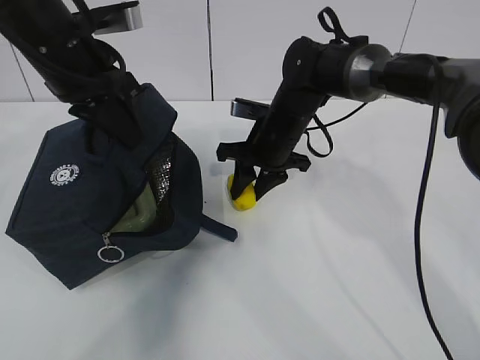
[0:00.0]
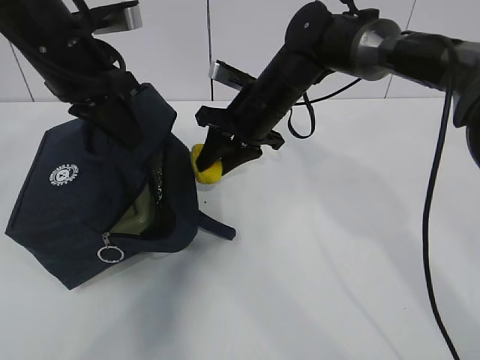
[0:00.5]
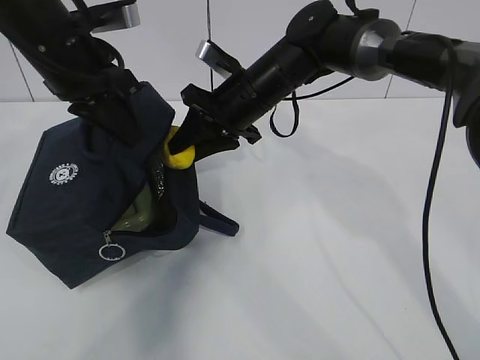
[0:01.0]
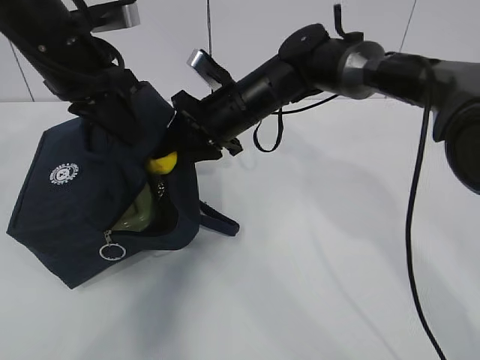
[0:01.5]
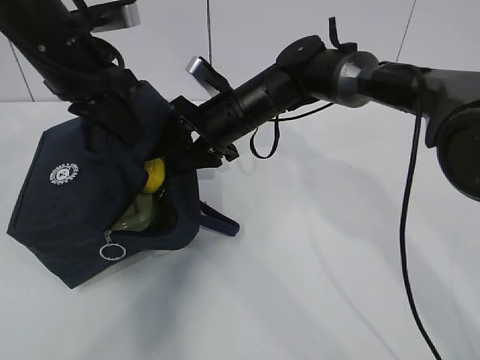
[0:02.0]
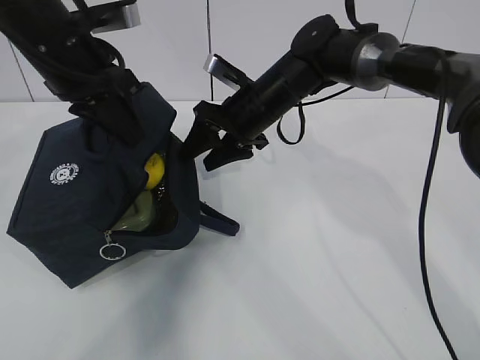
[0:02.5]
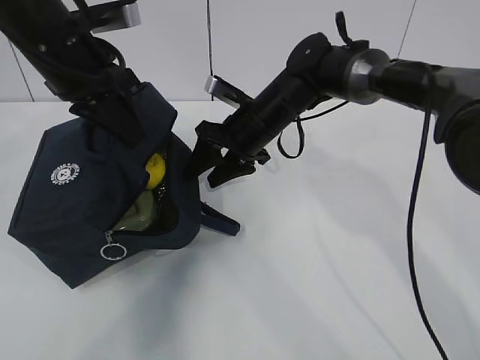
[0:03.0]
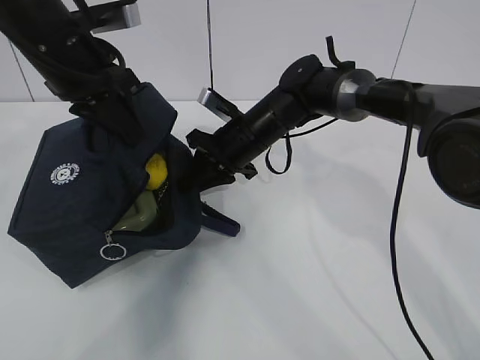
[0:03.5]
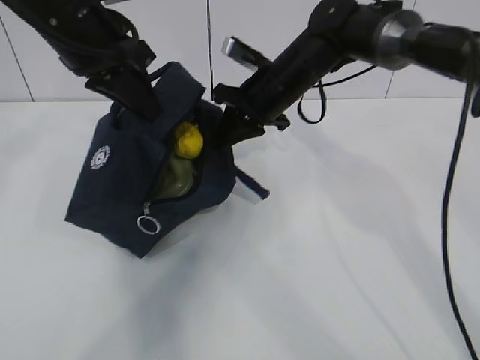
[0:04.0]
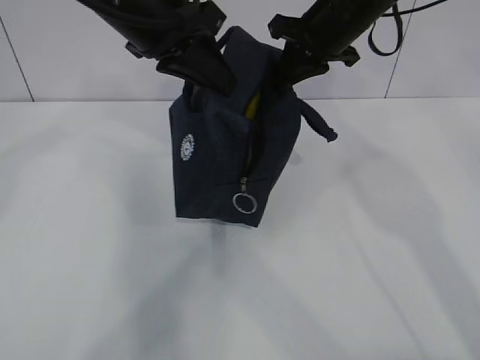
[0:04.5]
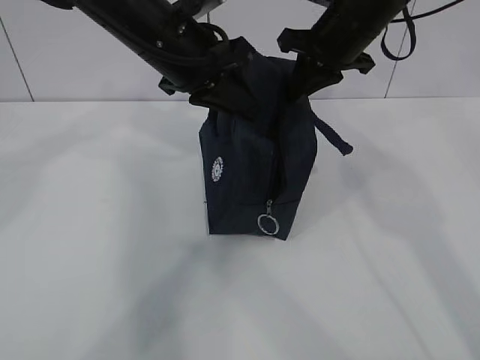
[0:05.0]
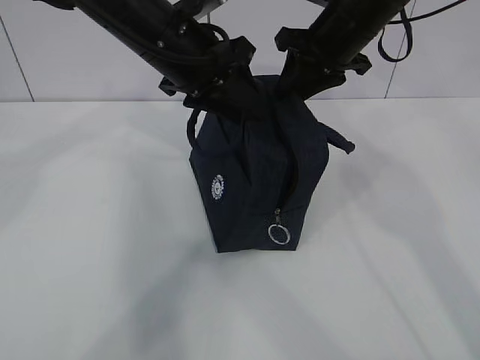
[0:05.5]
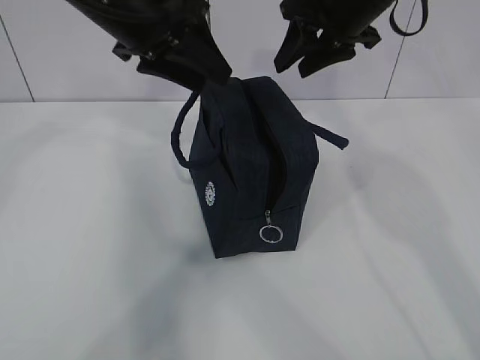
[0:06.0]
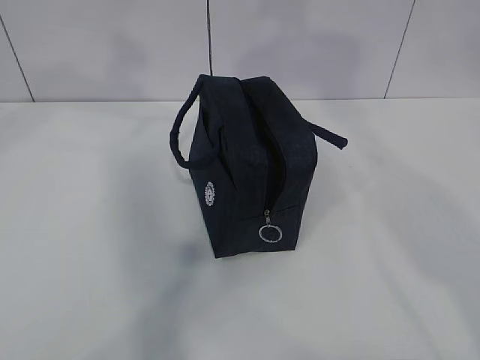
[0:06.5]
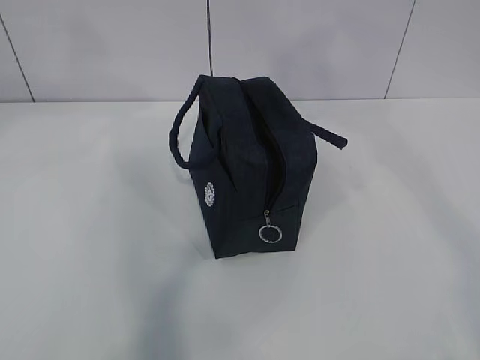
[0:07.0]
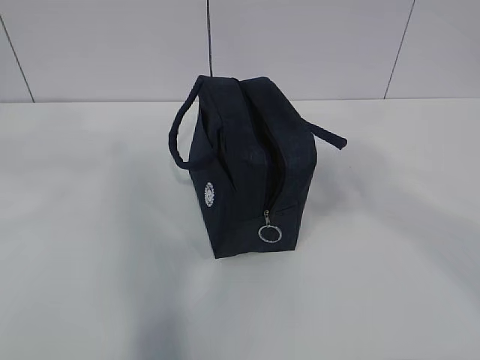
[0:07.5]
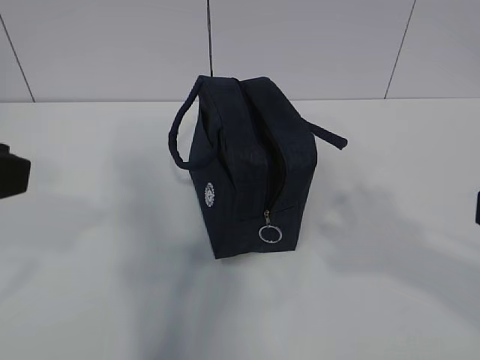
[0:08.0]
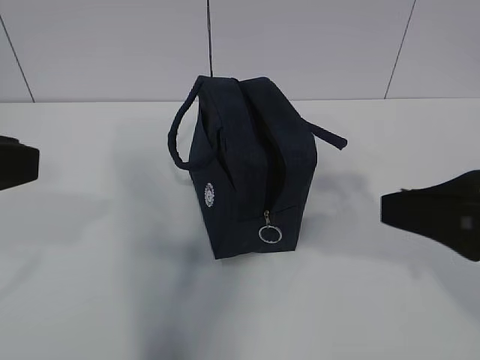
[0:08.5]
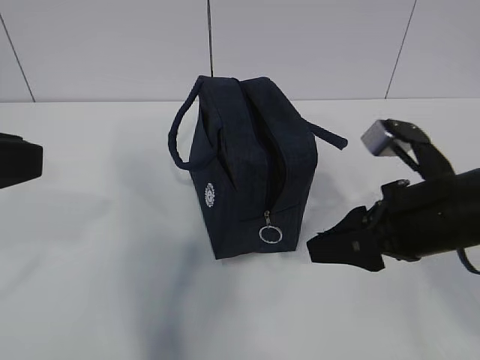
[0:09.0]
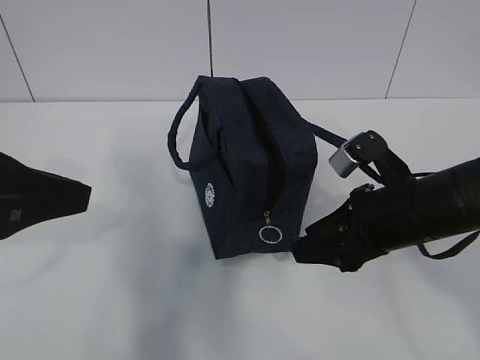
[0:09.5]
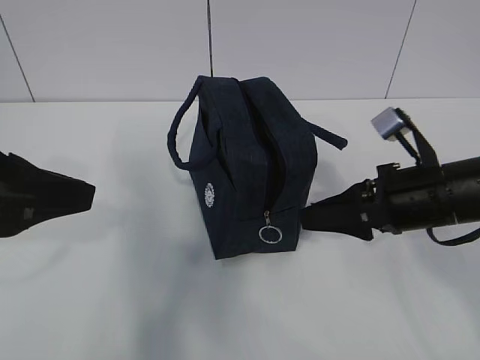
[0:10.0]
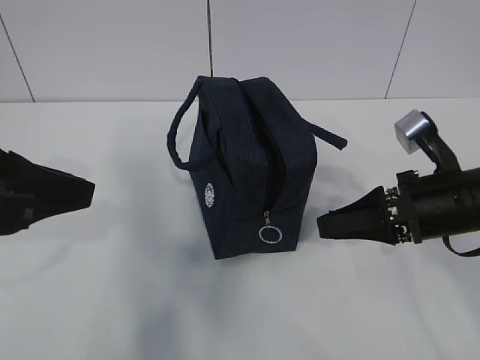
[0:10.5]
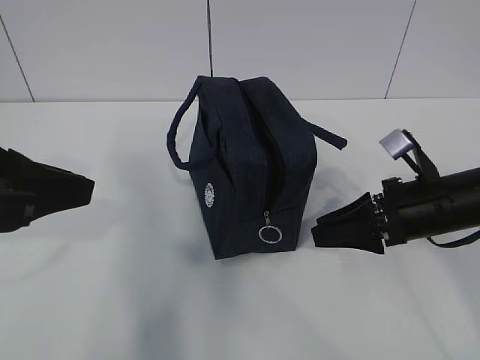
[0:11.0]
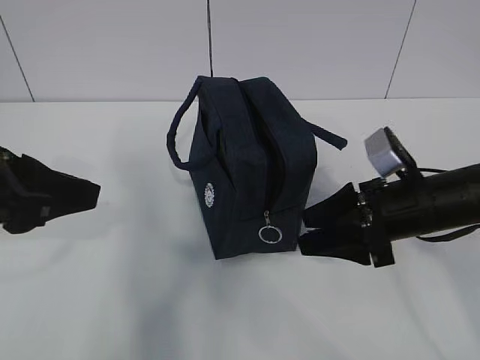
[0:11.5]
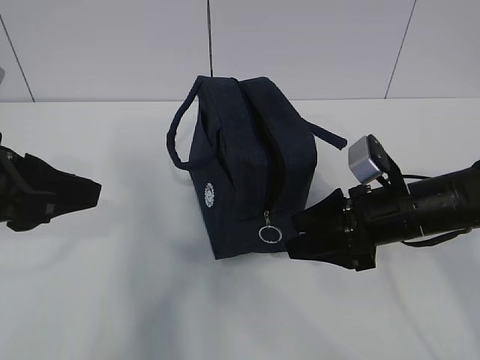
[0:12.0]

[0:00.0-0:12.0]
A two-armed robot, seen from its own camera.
0.0 to 2.0 s: The right gripper shifts roughly 5 cm to the left.
2.0 to 4.0 s: The right gripper travels to the right by some 5 cm, and closes up.
4.0 to 6.0 s: The left gripper opens its fingers. The right gripper is displaced upward and to the right by approximately 15 cm, and opens.
6.0 to 8.0 s: The right gripper moves backward, about 35 cm, while the left gripper moves backward and to the left, roughly 25 cm.
8.0 to 10.0 s: The right gripper shifts some 25 cm forward and downward, while the left gripper goes some 5 cm downward and forward.
10.0 to 12.0 s: The right gripper moves roughly 5 cm.

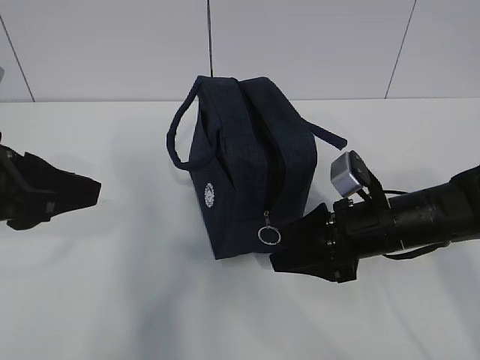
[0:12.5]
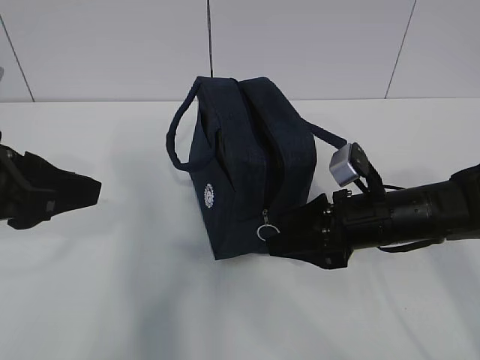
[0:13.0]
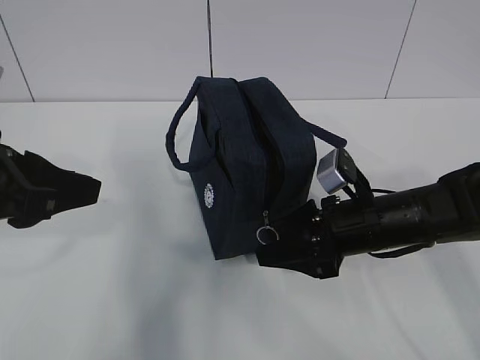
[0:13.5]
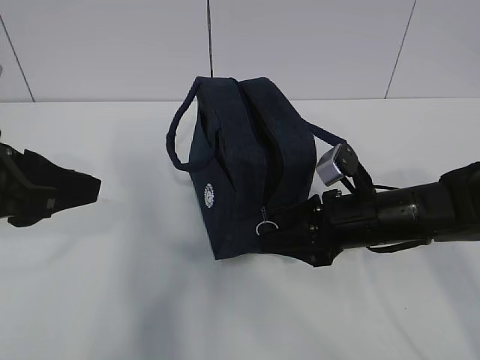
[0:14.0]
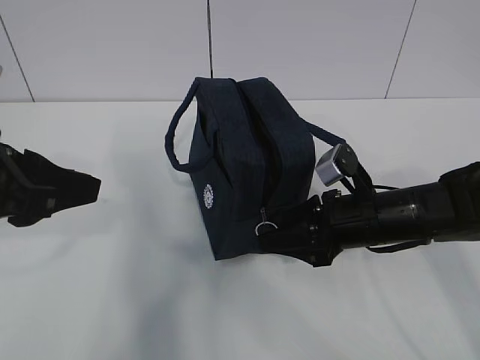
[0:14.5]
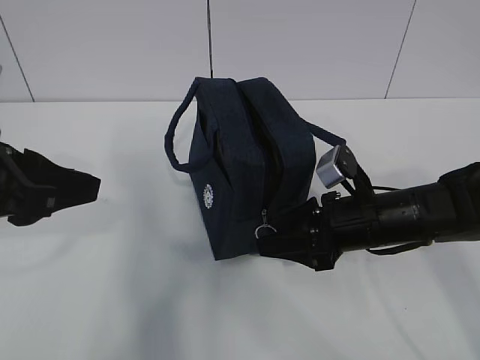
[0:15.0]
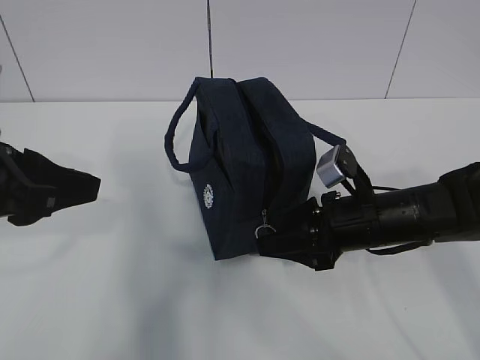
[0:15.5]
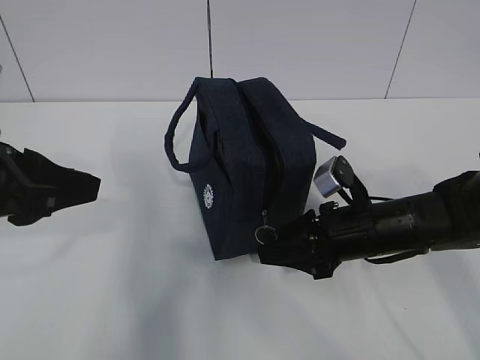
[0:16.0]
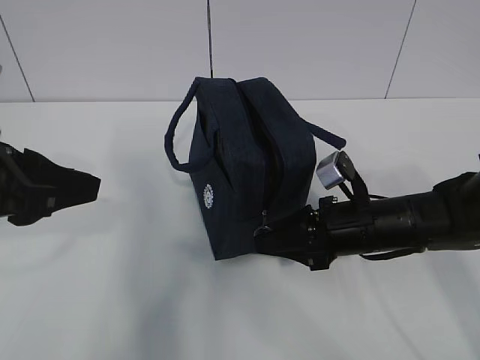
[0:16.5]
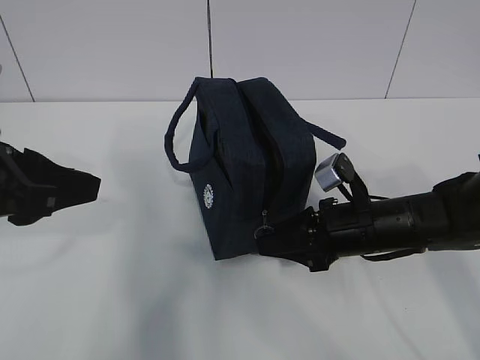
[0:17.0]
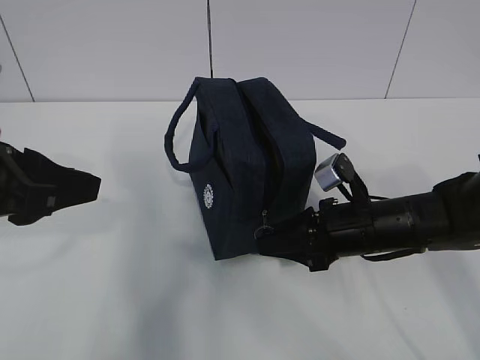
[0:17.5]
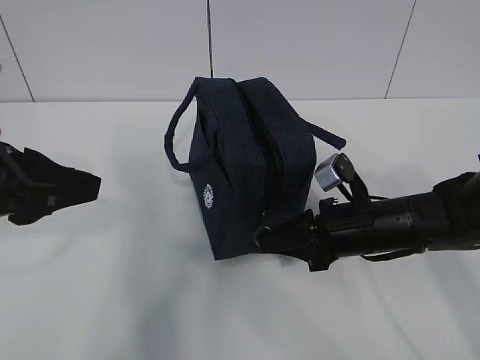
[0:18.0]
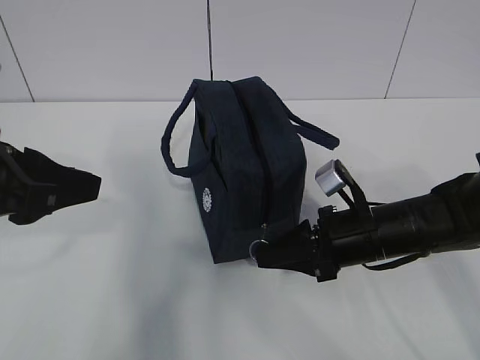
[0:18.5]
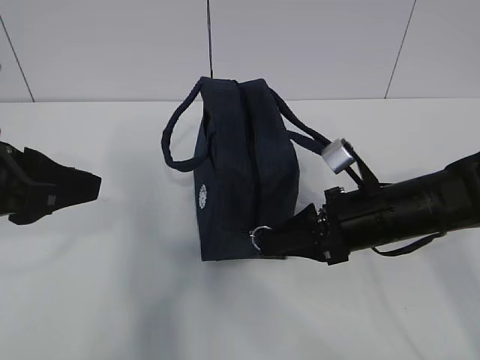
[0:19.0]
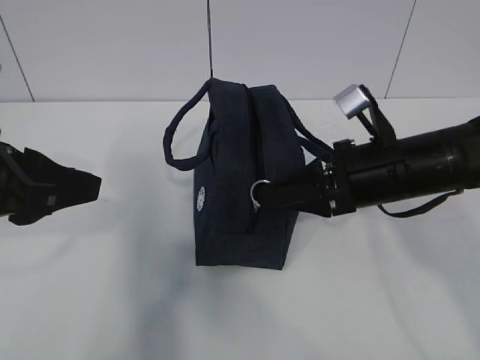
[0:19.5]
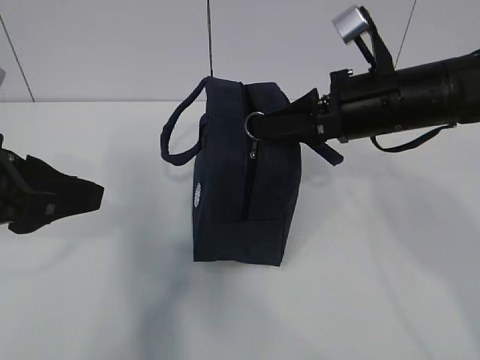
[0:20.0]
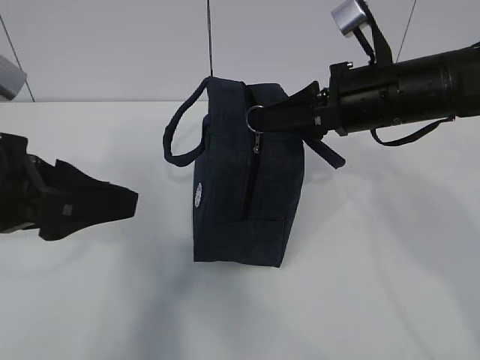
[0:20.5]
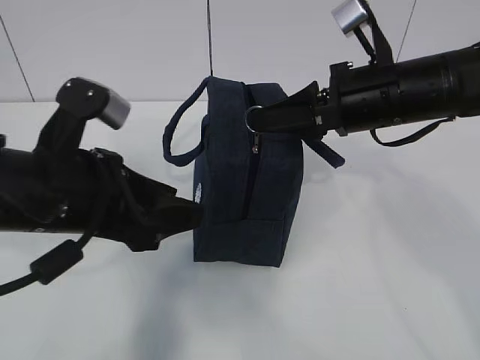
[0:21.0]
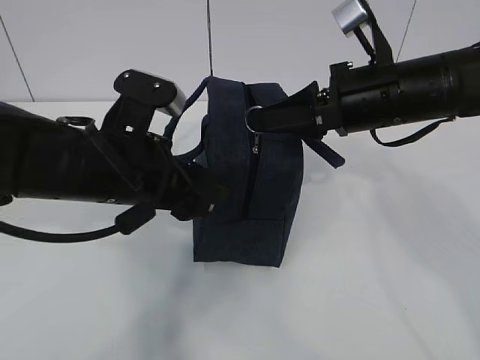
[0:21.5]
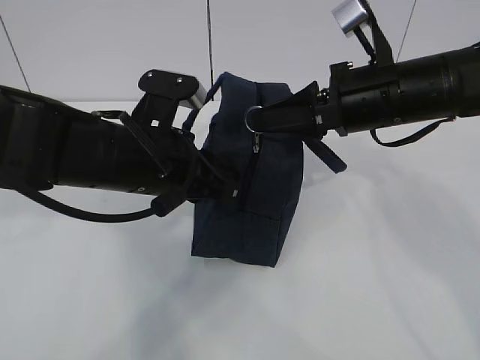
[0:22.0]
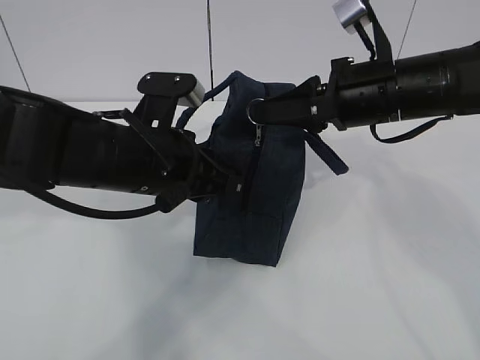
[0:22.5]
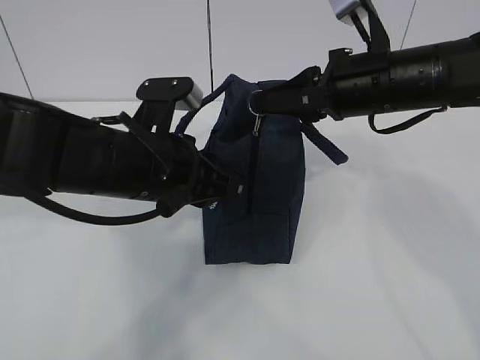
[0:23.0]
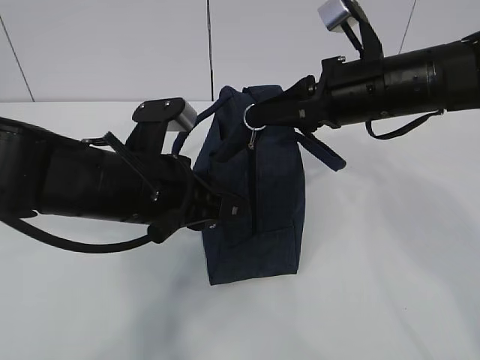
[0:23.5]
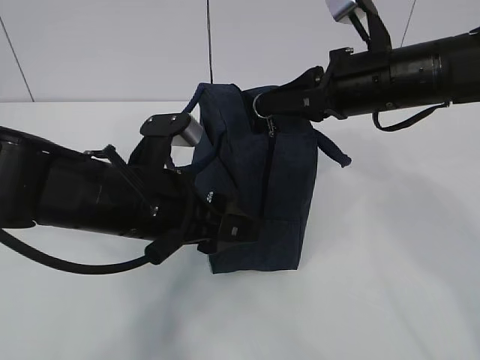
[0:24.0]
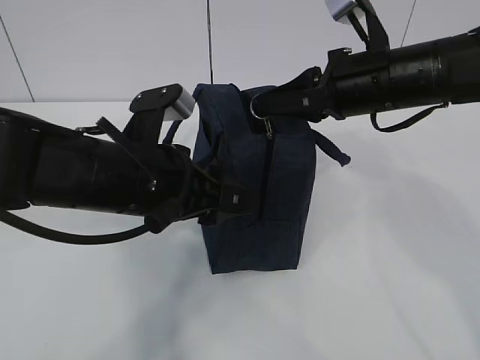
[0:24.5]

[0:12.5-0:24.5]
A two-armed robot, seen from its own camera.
Step, 19.5 to 23.0 s: Pull the zipper with your right hand.
Step, 23.5 to 24.0 s: Grab the lunch bag with your left hand.
12.5 to 16.5 s: The grippers move only a little.
16.5 to 18.5 s: The right gripper closes its fingers.
18.5 to 20.5 s: The right gripper travels upward by some 15 cm.
20.5 to 22.5 s: The left gripper travels to the right, forward and downward by approximately 15 cm, and closes.
22.5 to 24.5 s: The left gripper opens up.

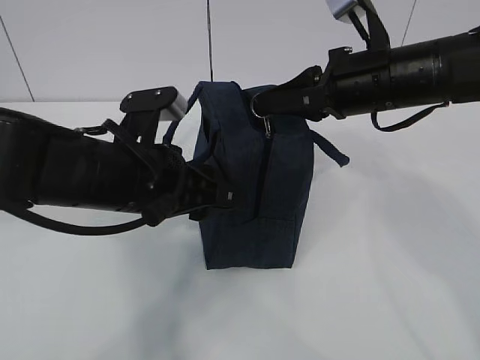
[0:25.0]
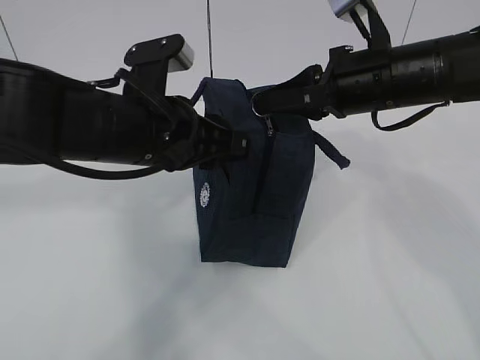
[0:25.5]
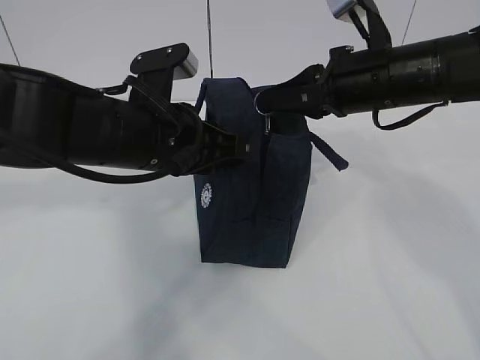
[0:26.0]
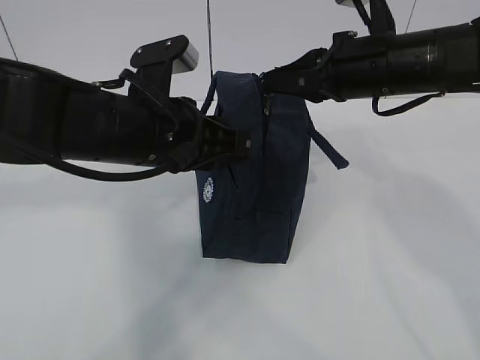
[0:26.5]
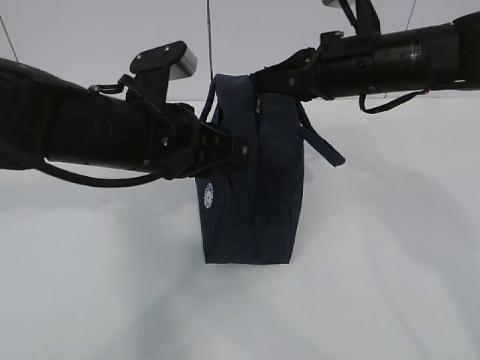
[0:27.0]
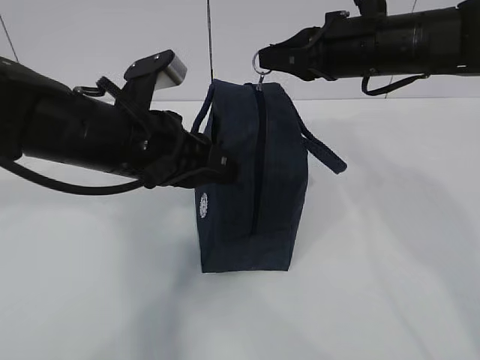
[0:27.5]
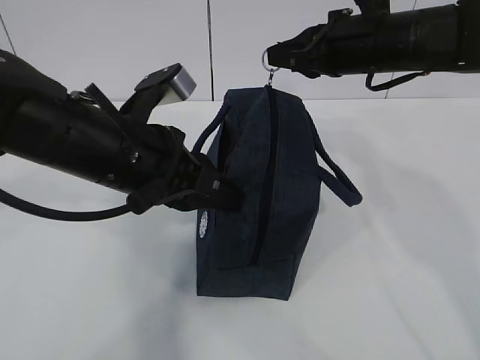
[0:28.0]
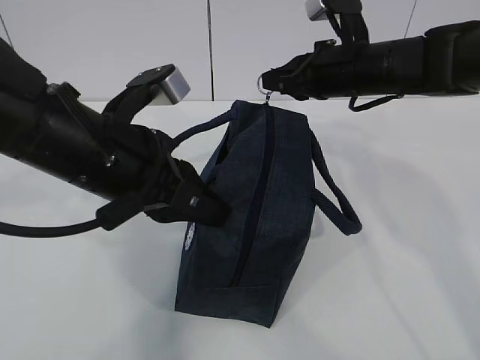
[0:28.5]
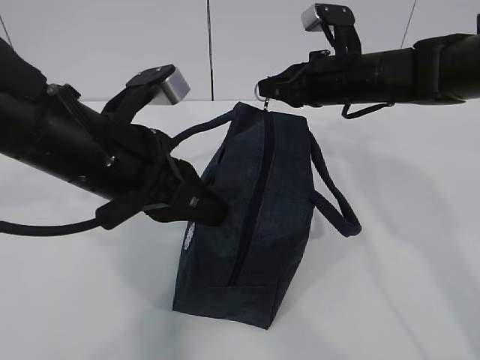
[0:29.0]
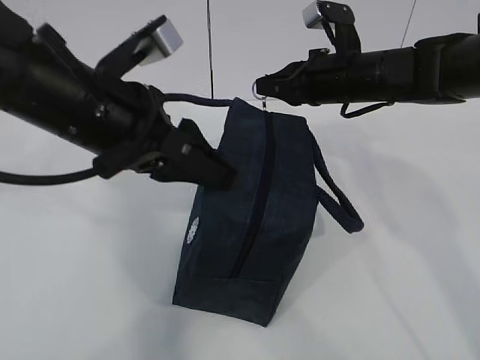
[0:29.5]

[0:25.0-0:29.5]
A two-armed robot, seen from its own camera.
25.0 to 27.0 s: The left gripper closes its fingers.
27.0 to 29.5 s: The right gripper moves forward, roughly 5 cm, while the left gripper shifts by some 5 cm, and opens up.
